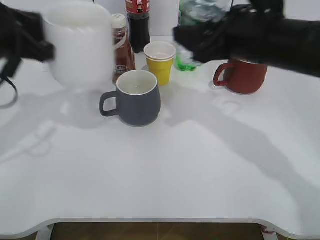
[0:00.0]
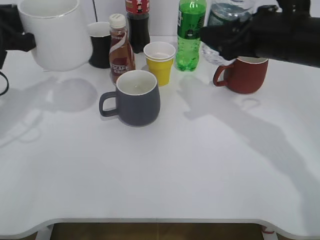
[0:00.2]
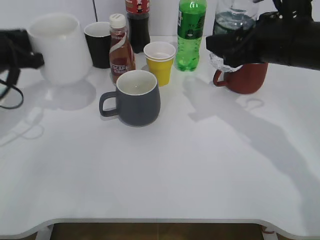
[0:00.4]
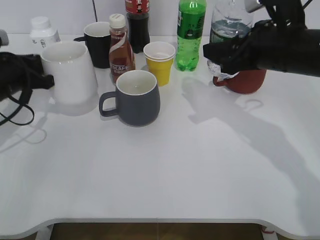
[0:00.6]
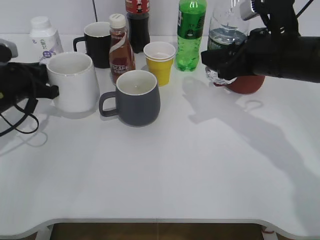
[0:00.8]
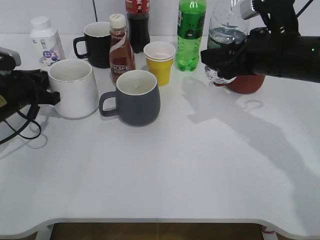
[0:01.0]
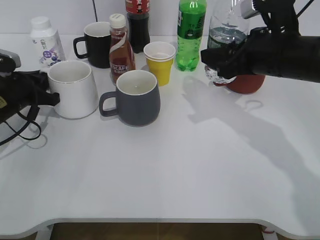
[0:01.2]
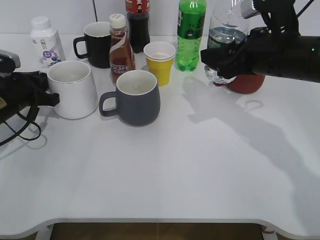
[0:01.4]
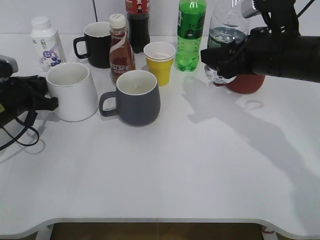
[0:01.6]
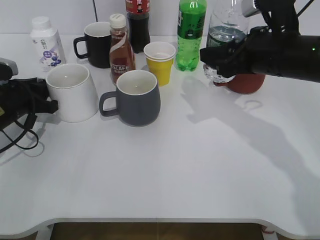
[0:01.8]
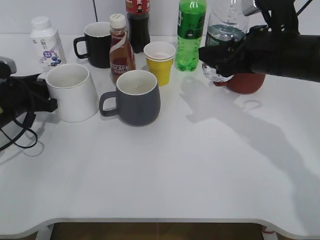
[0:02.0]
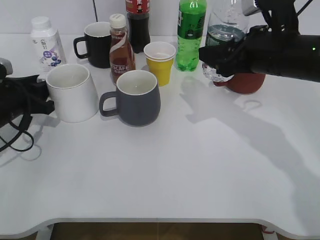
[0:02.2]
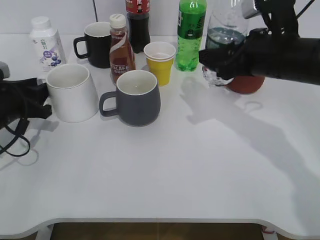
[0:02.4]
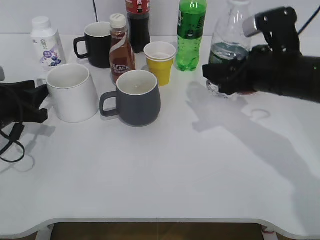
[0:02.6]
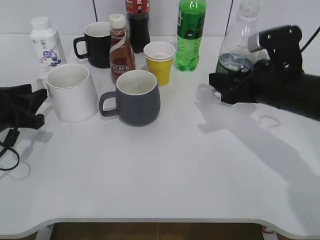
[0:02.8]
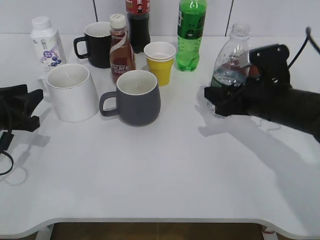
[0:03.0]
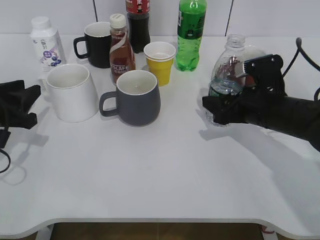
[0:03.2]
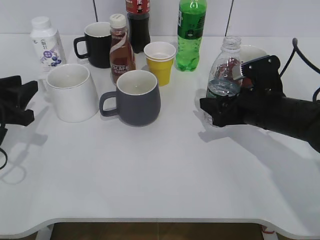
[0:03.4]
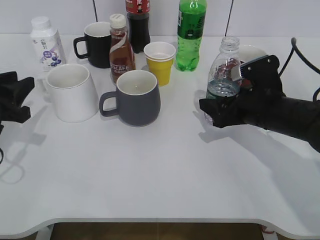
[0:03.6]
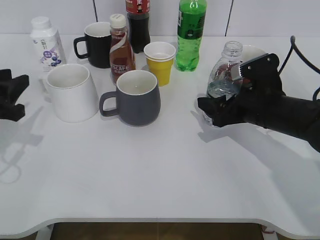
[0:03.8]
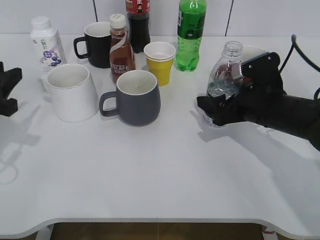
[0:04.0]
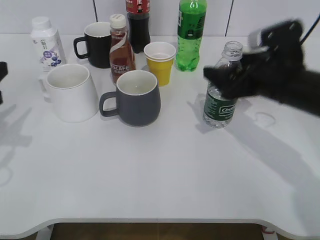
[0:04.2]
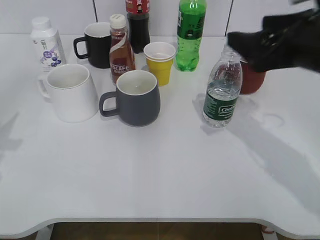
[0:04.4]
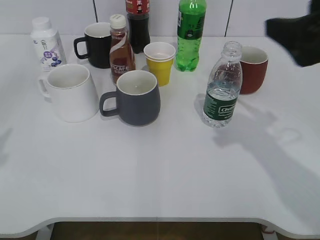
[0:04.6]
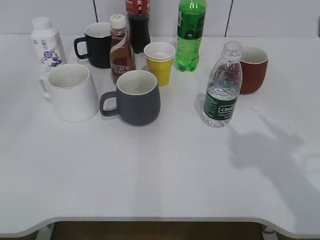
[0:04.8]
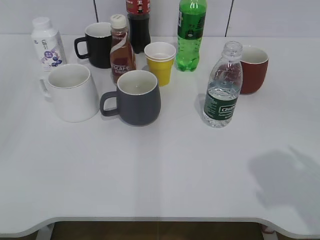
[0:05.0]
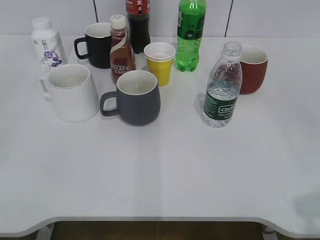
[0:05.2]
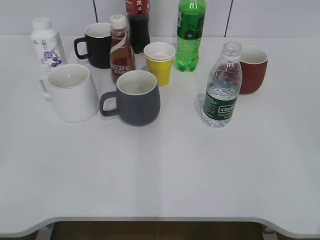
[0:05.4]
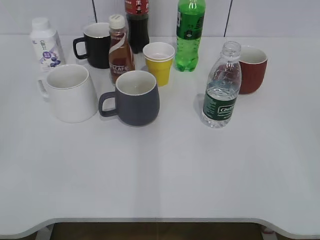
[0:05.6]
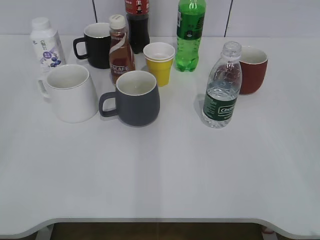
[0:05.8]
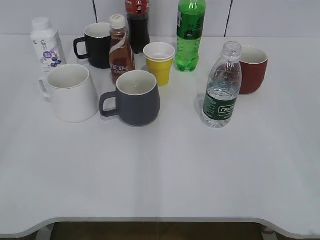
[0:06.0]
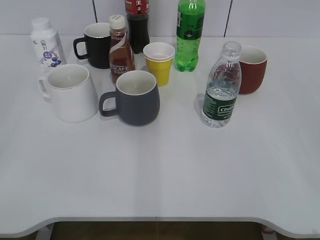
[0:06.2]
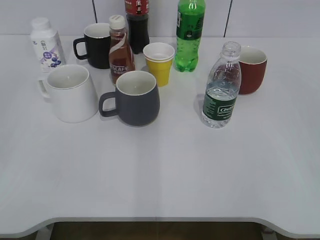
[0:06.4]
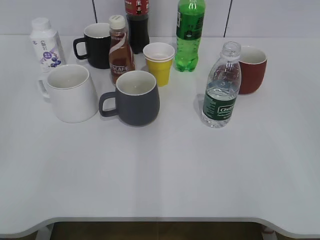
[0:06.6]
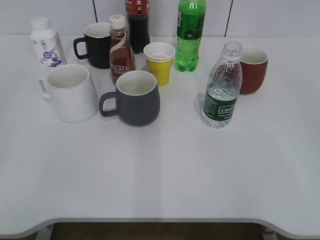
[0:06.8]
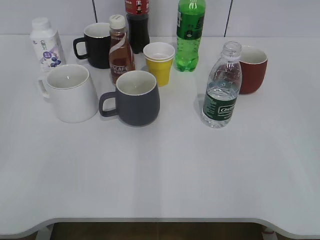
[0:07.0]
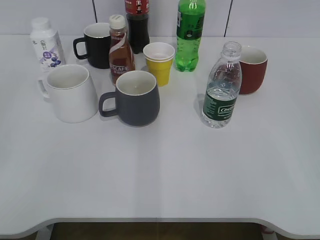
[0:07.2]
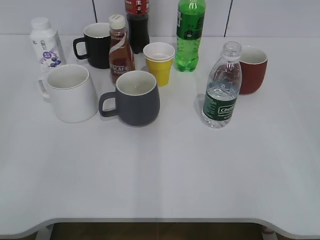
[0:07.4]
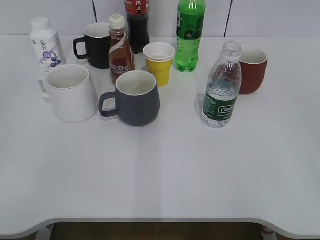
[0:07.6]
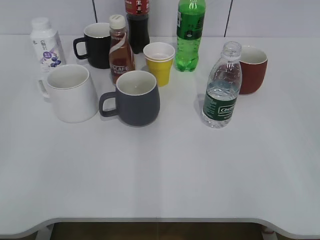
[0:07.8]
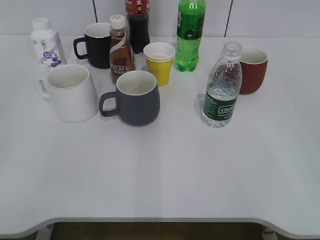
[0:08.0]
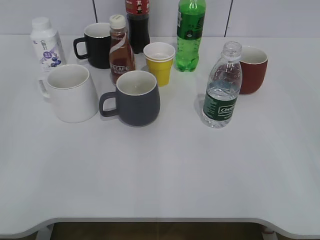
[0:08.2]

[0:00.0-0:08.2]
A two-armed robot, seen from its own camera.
Step, 0:00.0 to 0:01.8: Place the white cup on the table with left gripper.
Step, 0:02.0 to 0:03.6: Place the water bottle on the table with right gripper.
0:00.0 to 0:01.6: The left gripper shifts roughly 15 cm downward; the right gripper changes place by approximately 5 cm.
0:01.6 to 0:03.2: The right gripper moves downward, some 10 cm. Meanwhile the left gripper shifts some 5 cm backward, and opens its fingers.
0:03.2 to 0:05.0: Both grippers move backward and upward, approximately 30 cm. The left gripper opens its fingers; the right gripper opens.
0:05.0 to 0:06.6: The right gripper travels backward and to the right by approximately 10 cm.
